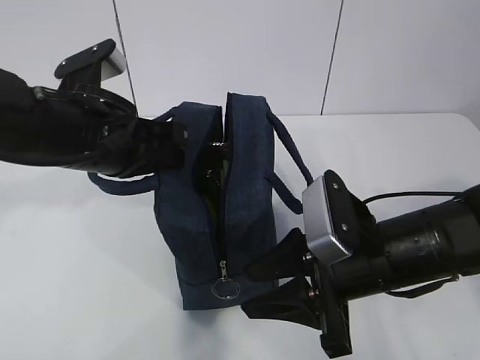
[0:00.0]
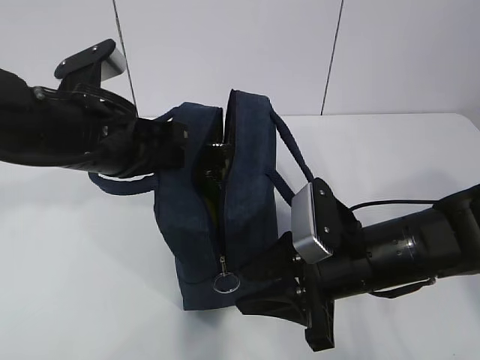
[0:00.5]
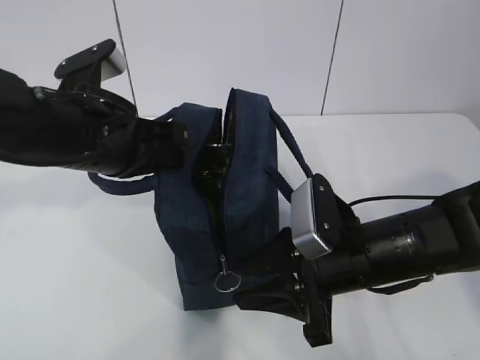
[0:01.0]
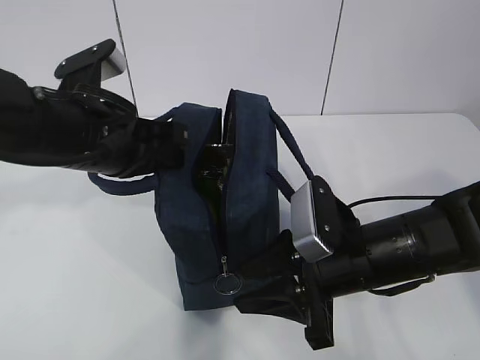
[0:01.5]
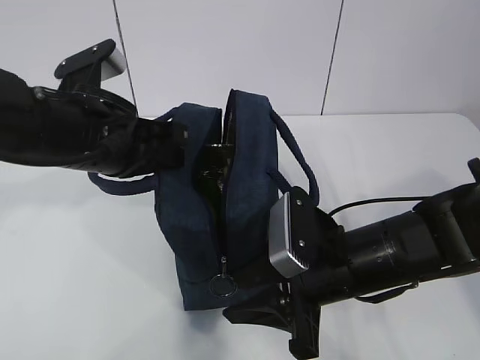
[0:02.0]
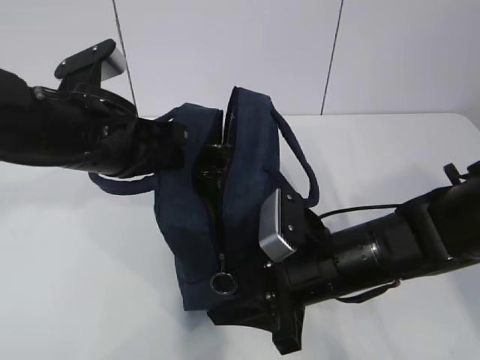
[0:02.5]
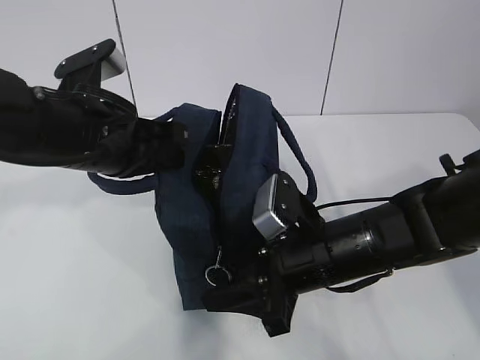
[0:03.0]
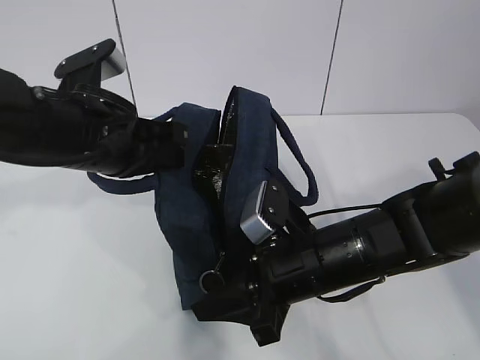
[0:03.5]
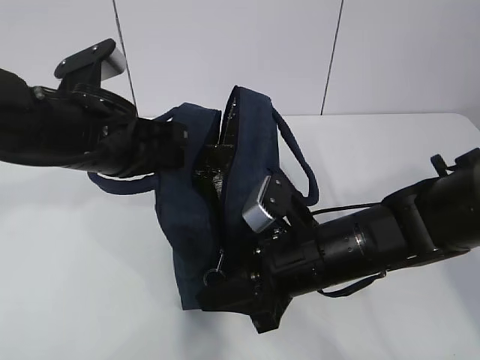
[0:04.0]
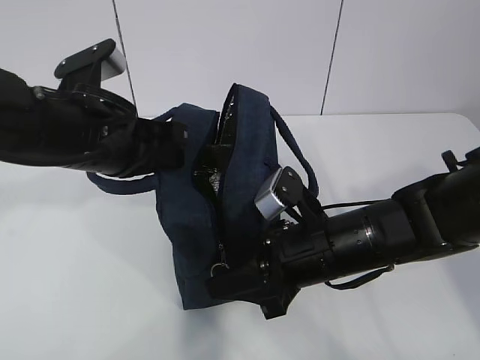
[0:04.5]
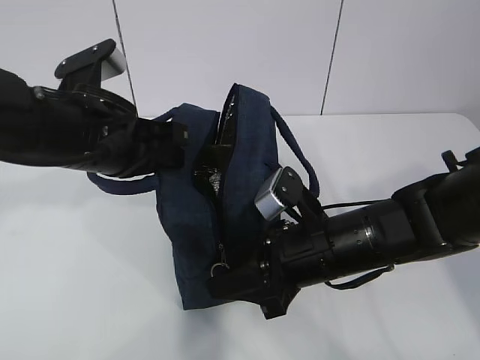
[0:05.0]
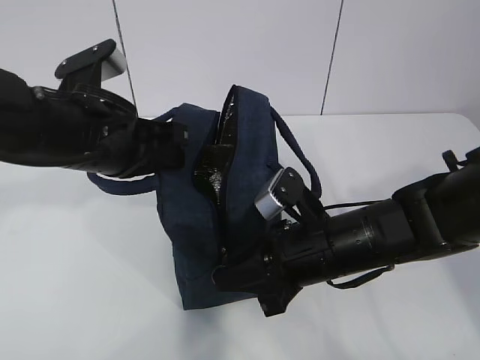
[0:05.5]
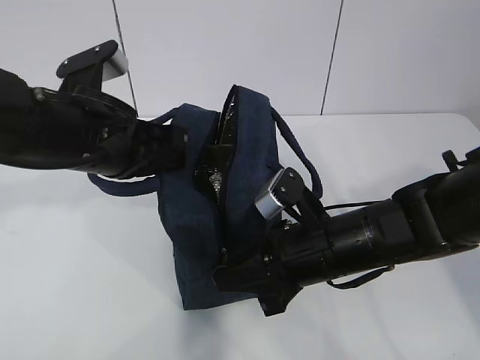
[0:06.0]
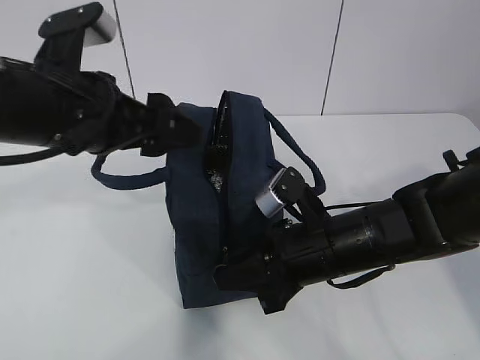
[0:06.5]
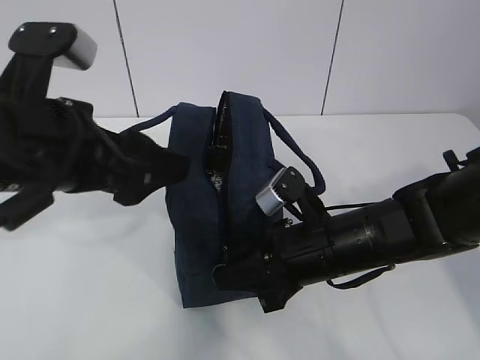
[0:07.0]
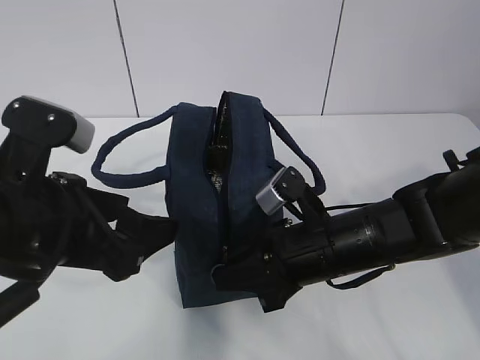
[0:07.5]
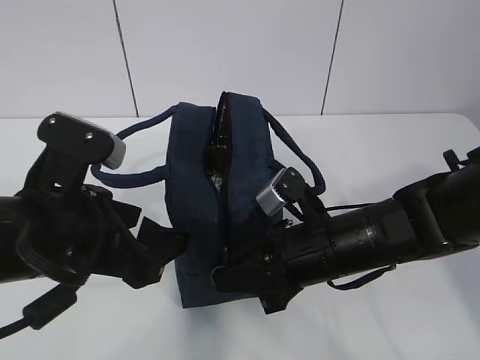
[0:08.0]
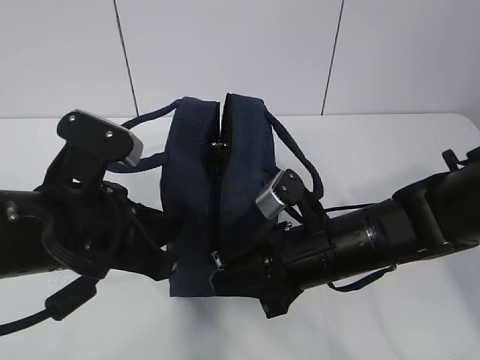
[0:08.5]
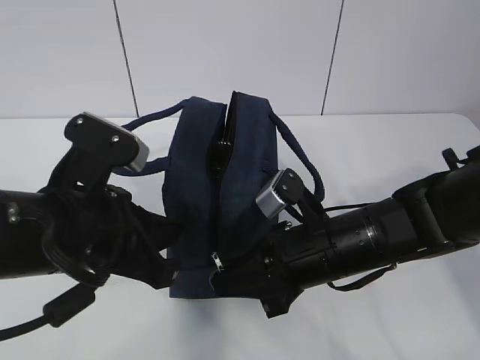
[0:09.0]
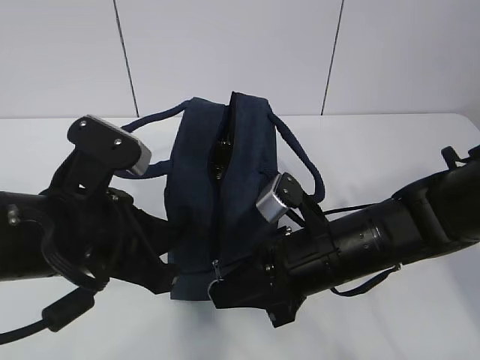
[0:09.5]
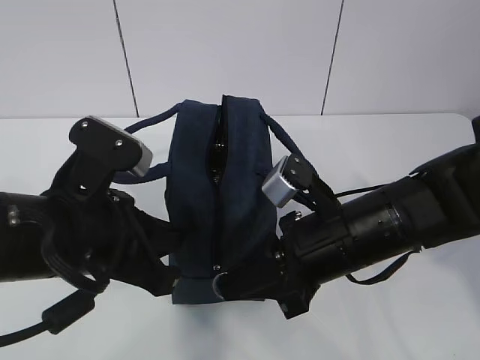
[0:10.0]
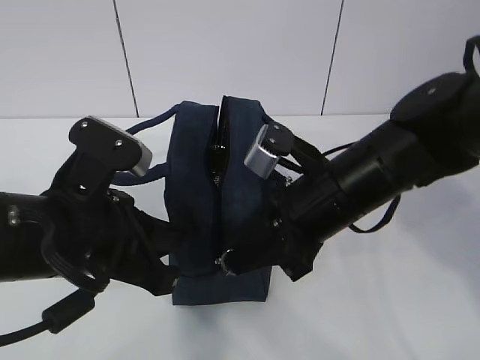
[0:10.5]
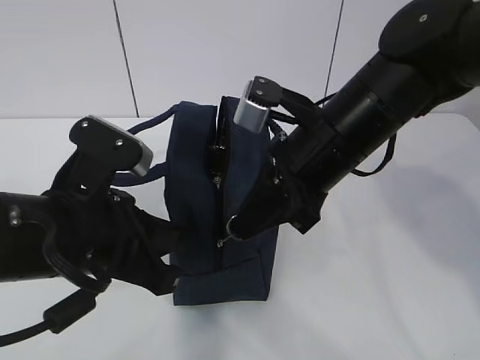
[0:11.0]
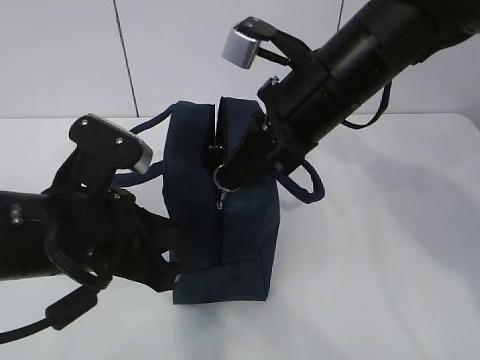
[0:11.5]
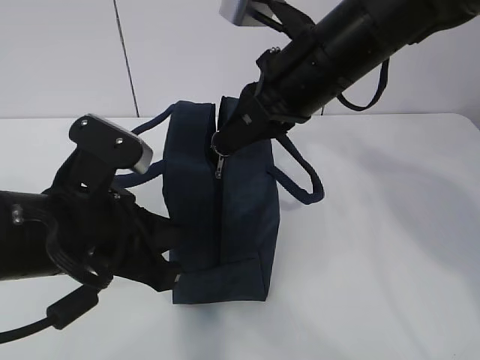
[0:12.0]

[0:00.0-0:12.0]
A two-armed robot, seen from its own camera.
0:00.0 to 0:02.0: The grippers make only small movements.
0:04.0 to 0:06.0: The right gripper closes its fingers.
0:06.0 to 0:08.0: The left gripper goes some 10 cm backward, and opens.
0:08.0 to 0:10.0: The left gripper closes.
0:10.0 to 0:12.0: The right gripper is displaced upward and forward by roughly 15 cm.

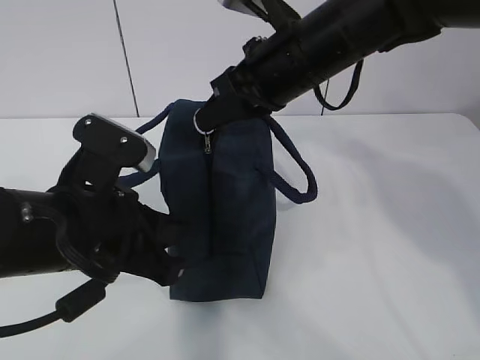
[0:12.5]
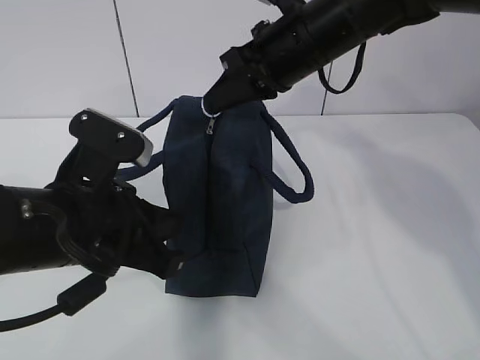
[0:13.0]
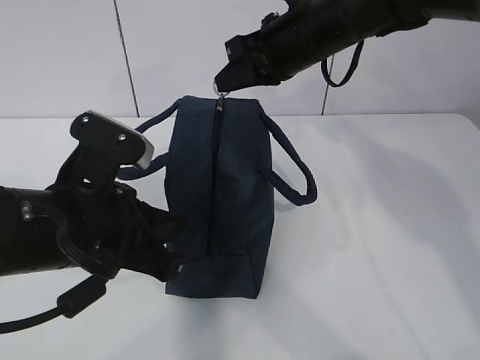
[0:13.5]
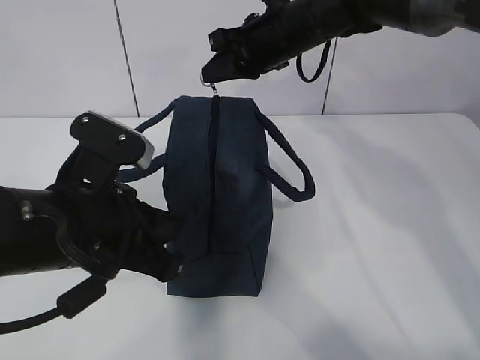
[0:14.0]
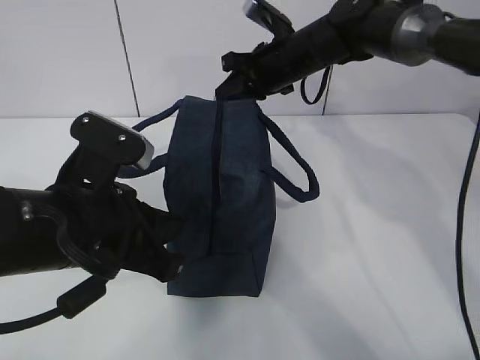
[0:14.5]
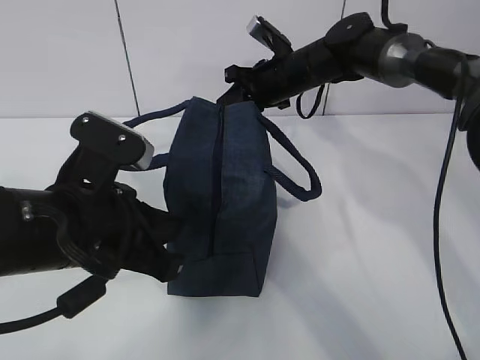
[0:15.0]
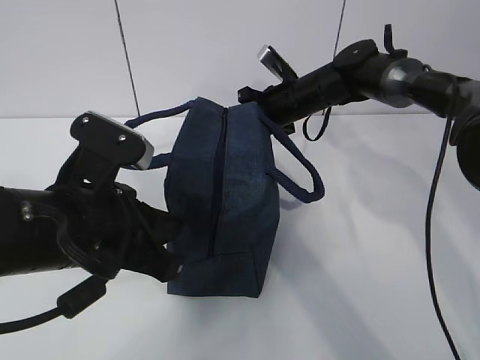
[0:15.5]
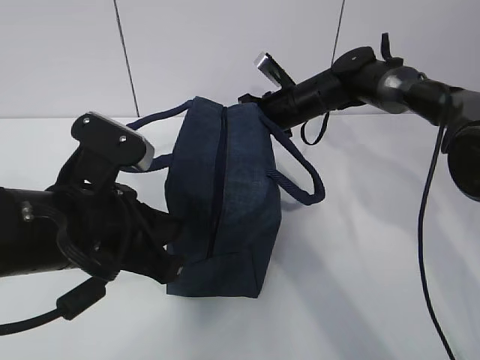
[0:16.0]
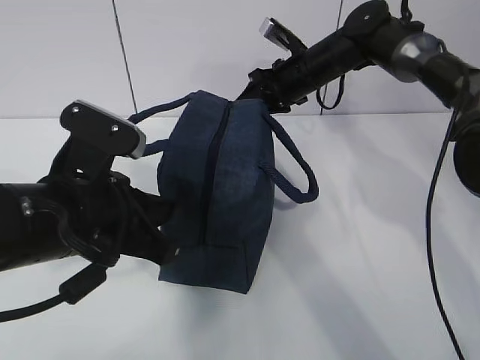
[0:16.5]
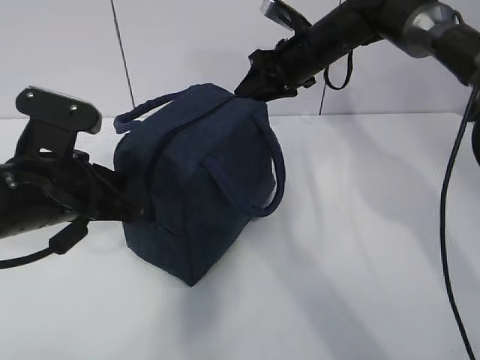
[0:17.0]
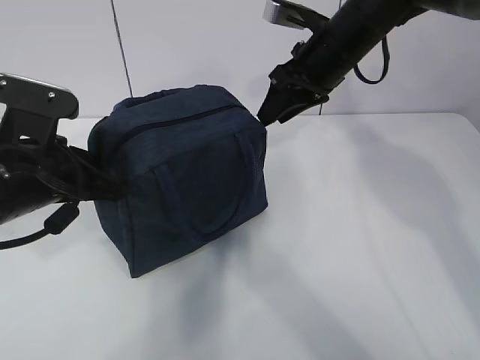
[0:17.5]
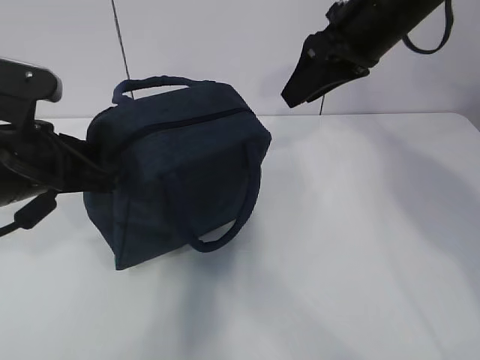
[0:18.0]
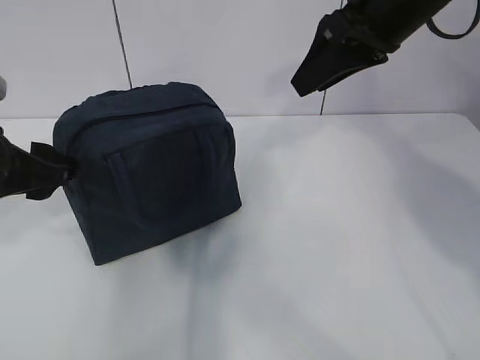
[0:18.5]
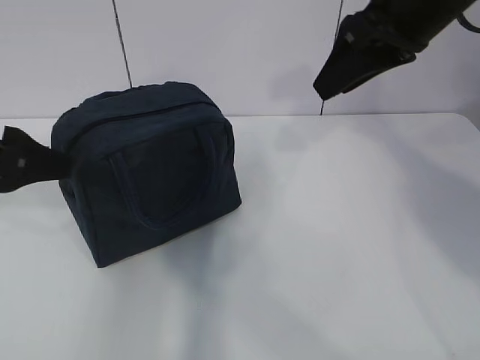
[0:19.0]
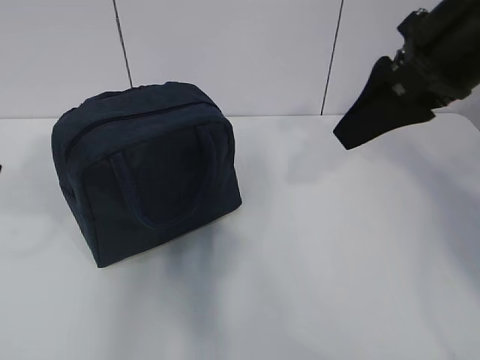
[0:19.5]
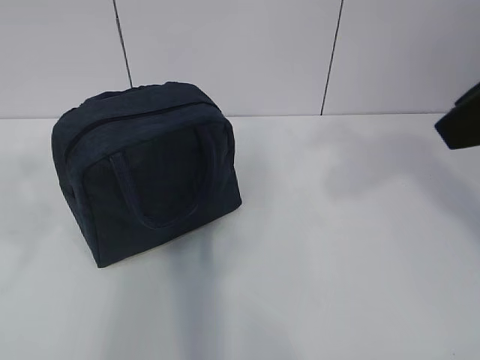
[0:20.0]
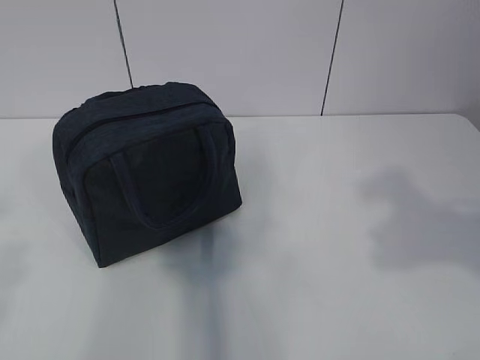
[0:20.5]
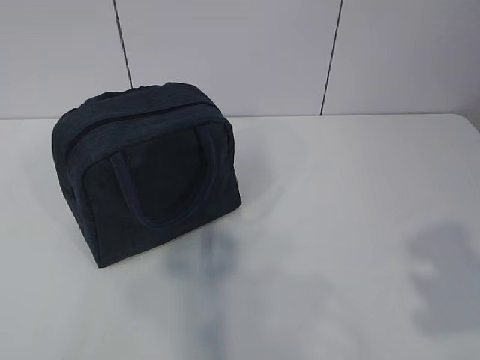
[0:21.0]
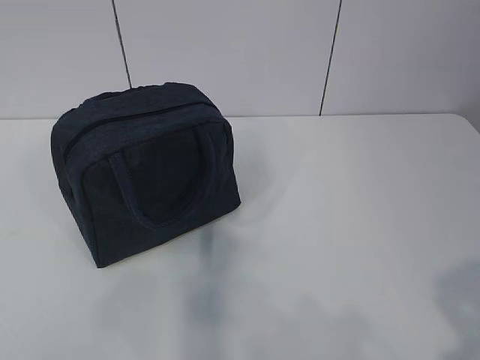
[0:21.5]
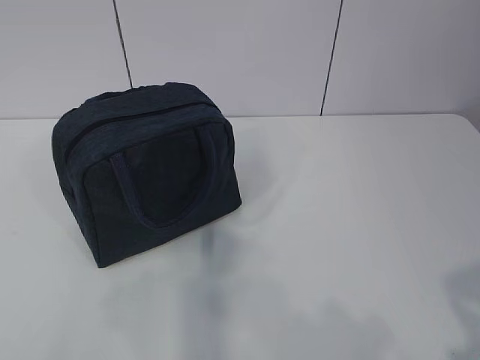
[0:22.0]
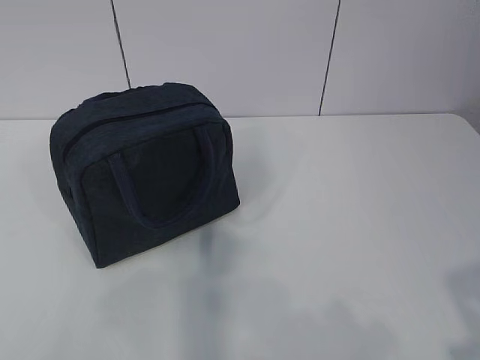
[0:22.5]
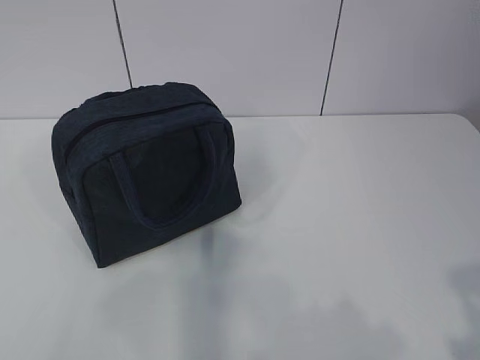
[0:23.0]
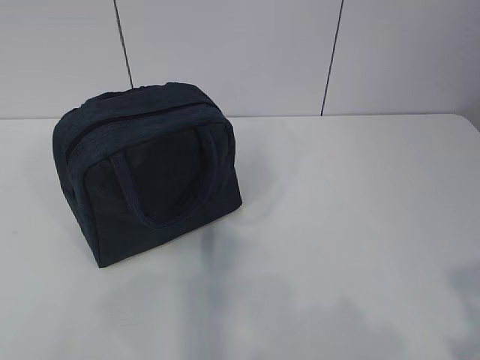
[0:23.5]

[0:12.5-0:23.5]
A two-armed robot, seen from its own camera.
Step, 0:12.5 to 0:19.0: zip up the zipper to close the bag.
0:12.5 to 0:14.5: The right gripper moves forward and downward, approximately 15 cm.
0:14.5 to 0:16.0: The right gripper travels downward by about 10 cm.
0:16.0 to 0:18.0: The right gripper goes about 25 cm upward and backward, and opens up. The left gripper moves to the left, roughly 5 cm.
0:18.0 to 0:20.0: The right gripper heads backward, covering about 20 cm, while the left gripper travels backward, upward and to the left by roughly 20 cm, and opens.
0:20.0 to 0:21.5: The right gripper moves backward and downward, approximately 25 cm. The left gripper goes approximately 15 cm backward and downward.
0:21.5 to 0:23.5: The grippers stay close to where they were, moving slightly.
